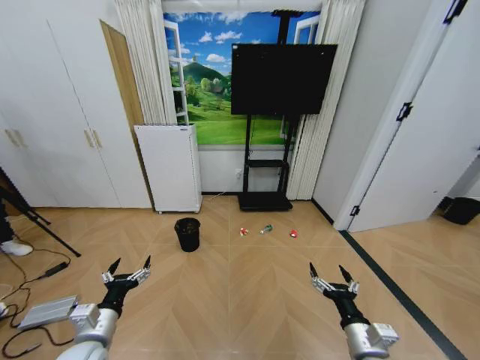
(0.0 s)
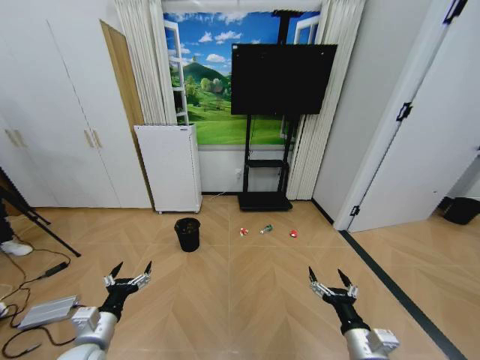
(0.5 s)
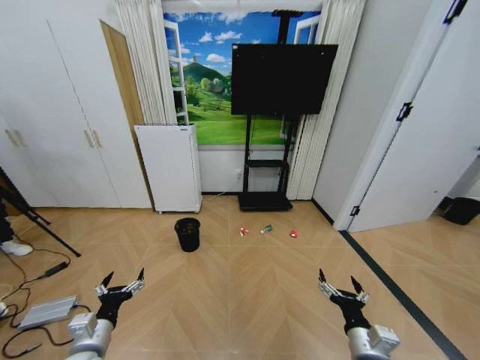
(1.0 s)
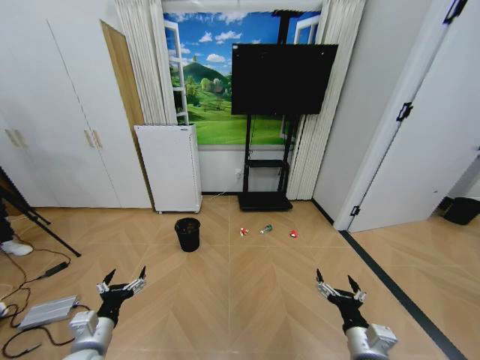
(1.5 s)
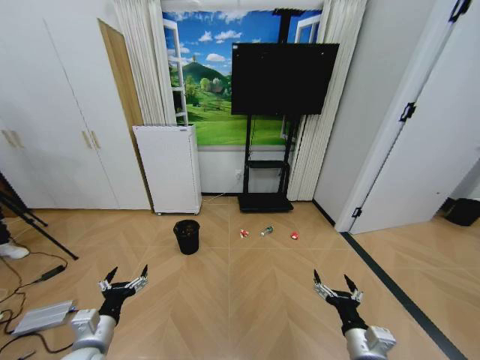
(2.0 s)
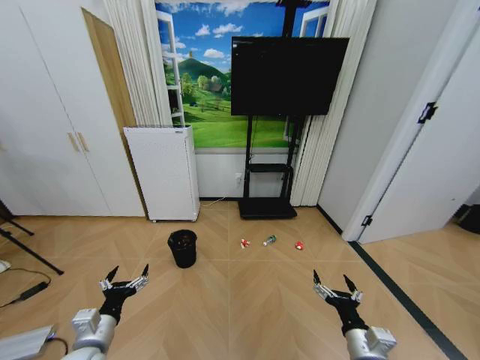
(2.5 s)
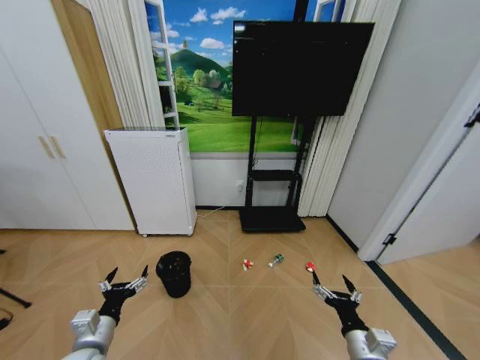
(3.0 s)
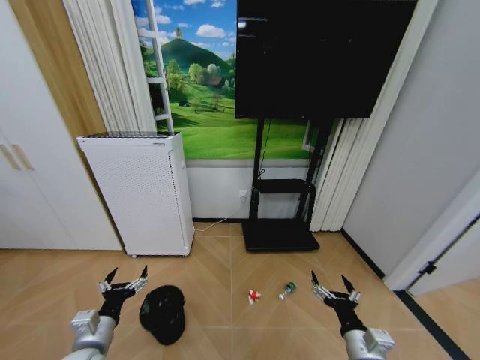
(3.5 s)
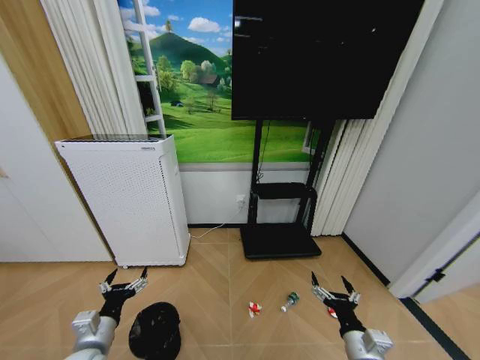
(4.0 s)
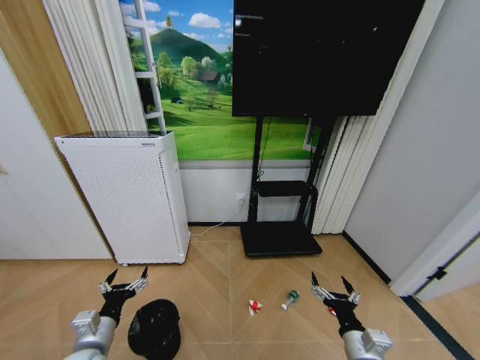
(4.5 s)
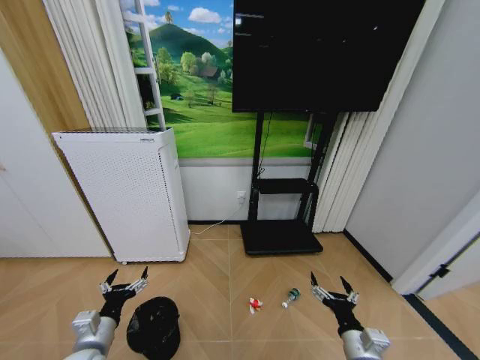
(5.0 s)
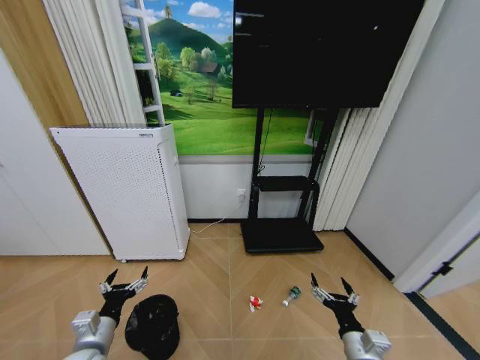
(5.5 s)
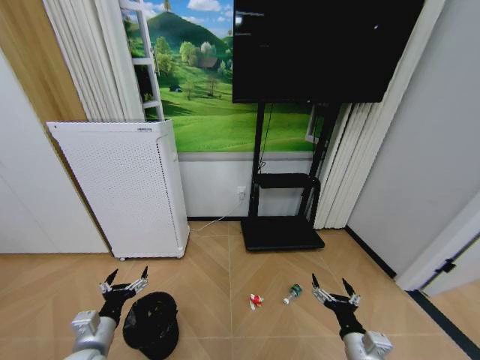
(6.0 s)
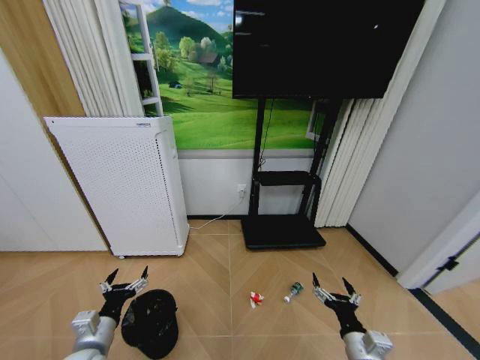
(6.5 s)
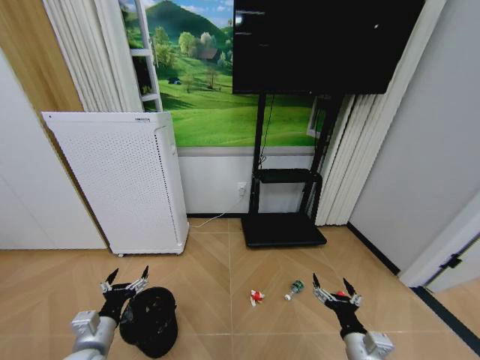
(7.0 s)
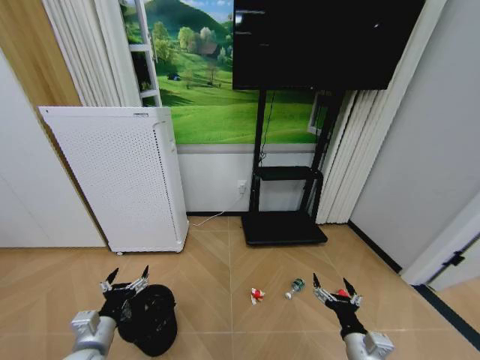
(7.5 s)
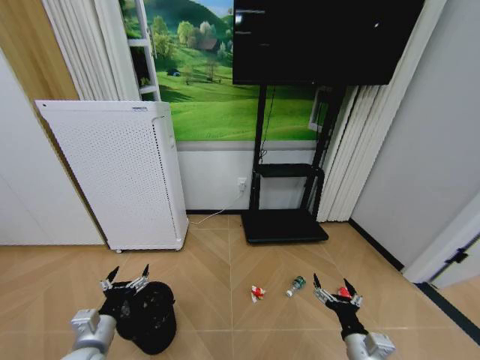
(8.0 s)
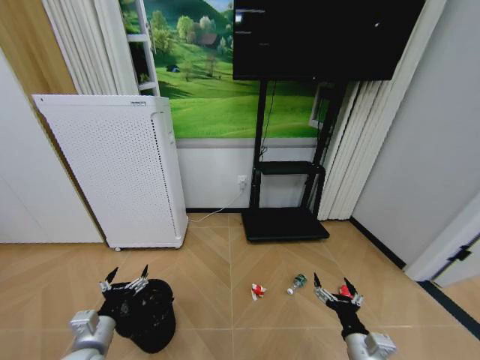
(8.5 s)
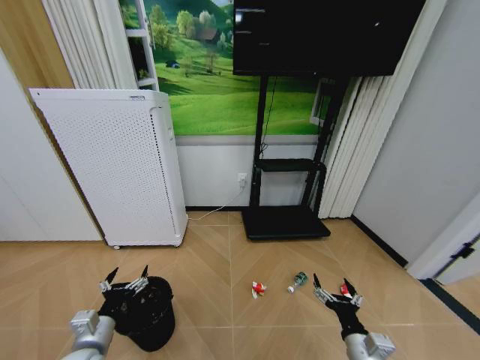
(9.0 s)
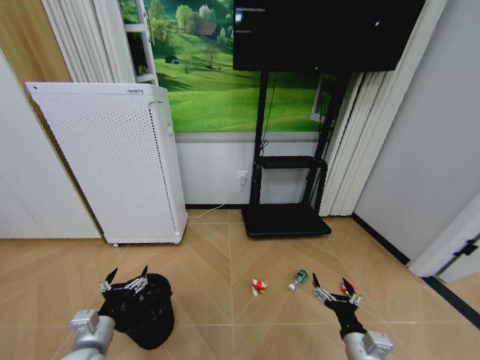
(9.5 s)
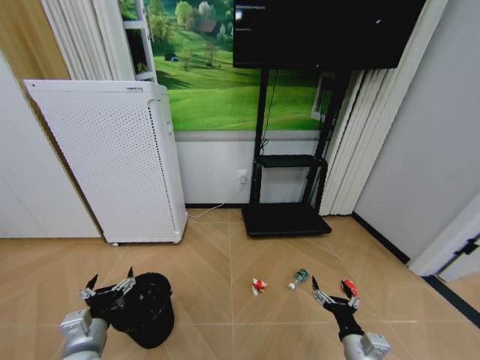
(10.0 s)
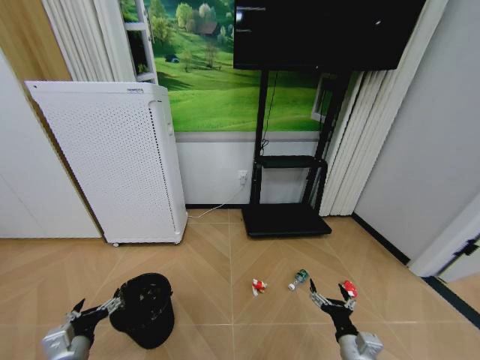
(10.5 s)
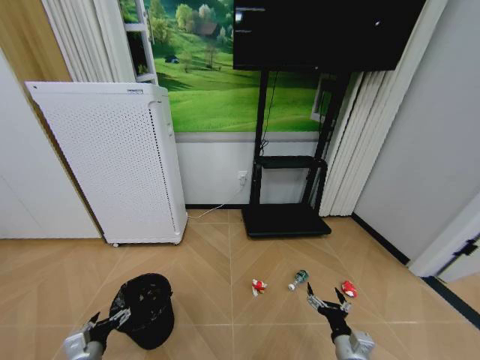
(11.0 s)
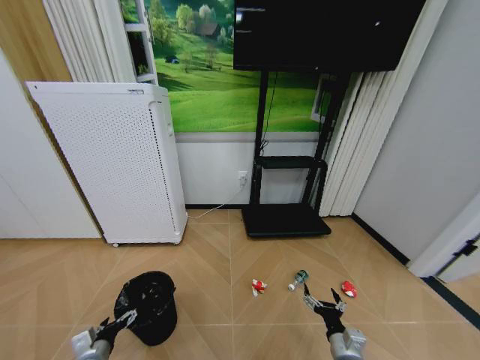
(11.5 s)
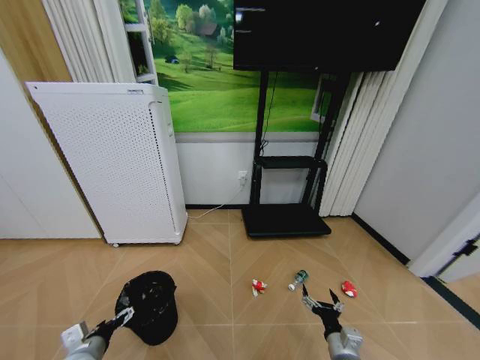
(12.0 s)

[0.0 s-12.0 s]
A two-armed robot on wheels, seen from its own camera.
Task of the whole recording: Pick up the trash bin and place the garbage on the floor into it.
4.0 to 8.0 s: Neither gripper changes place.
8.0 to 10.0 s: The grippers make only small movements.
10.0 to 12.0 s: The left gripper moves downward and to the left, roughly 10 cm. Meanwhile the right gripper travels downward by roughly 5 cm.

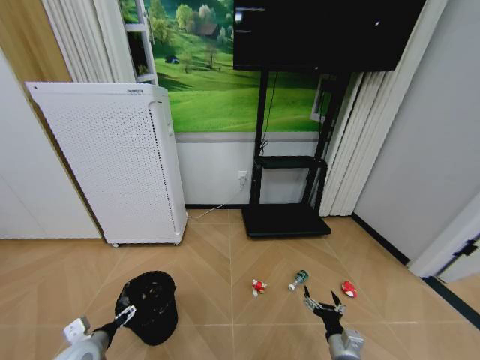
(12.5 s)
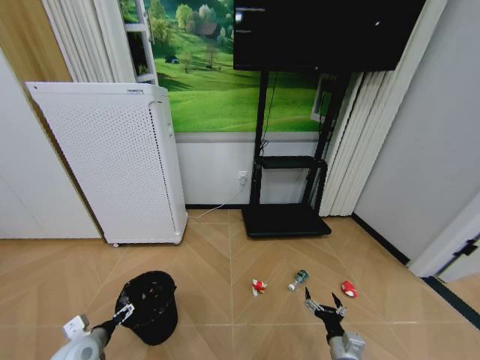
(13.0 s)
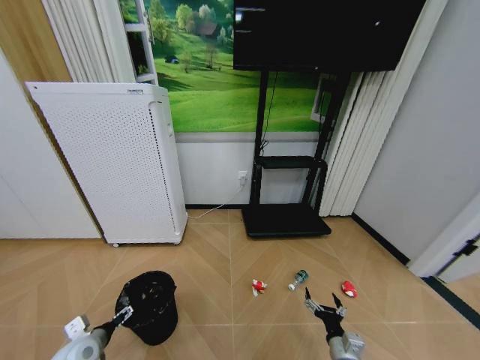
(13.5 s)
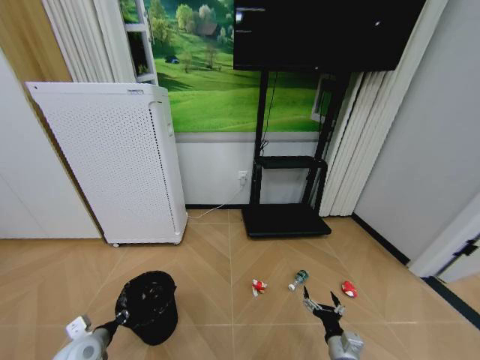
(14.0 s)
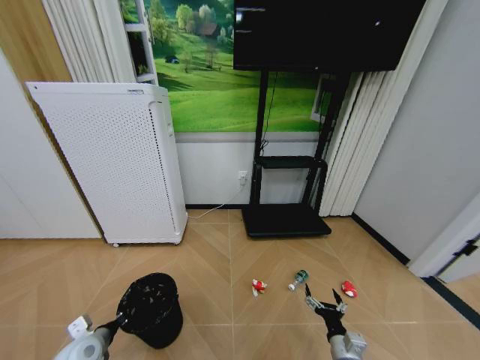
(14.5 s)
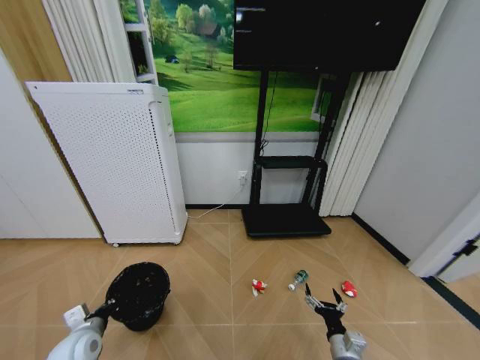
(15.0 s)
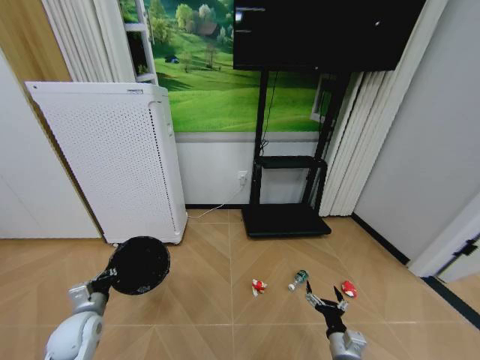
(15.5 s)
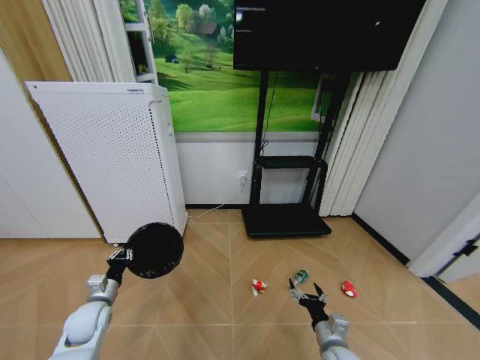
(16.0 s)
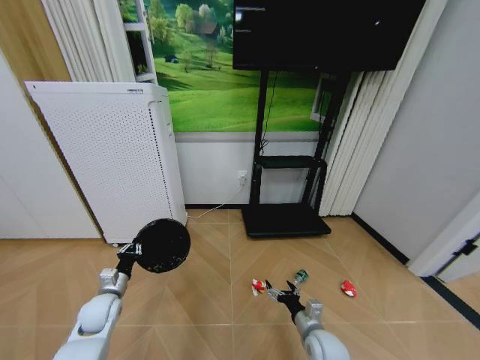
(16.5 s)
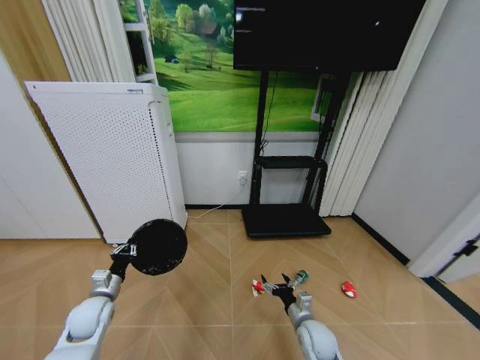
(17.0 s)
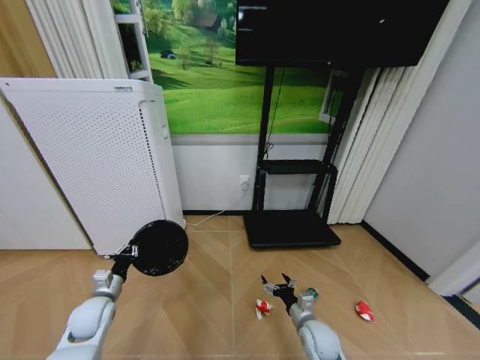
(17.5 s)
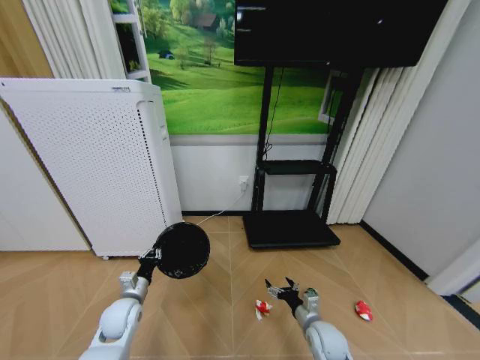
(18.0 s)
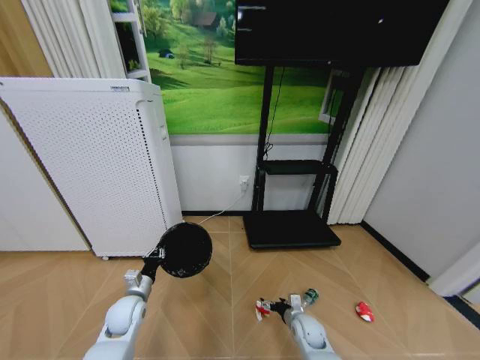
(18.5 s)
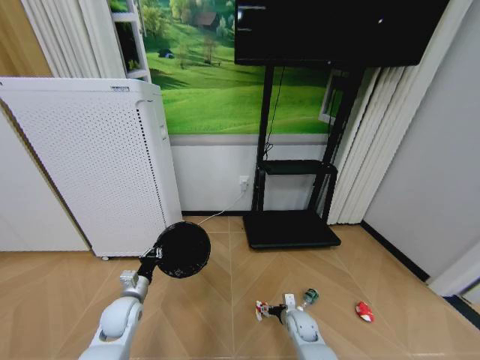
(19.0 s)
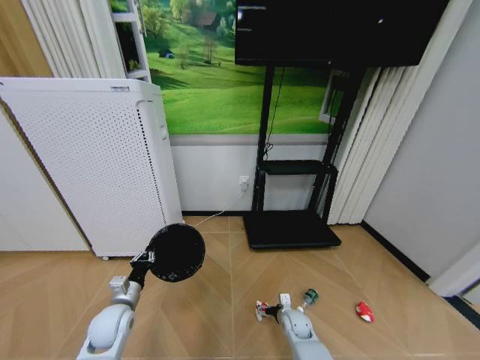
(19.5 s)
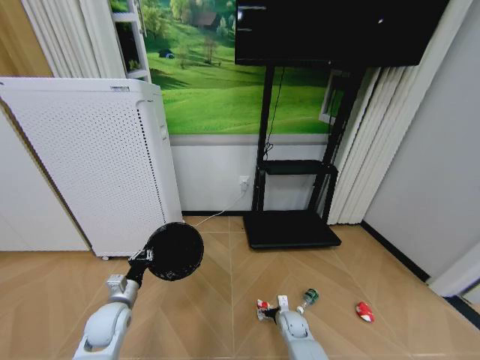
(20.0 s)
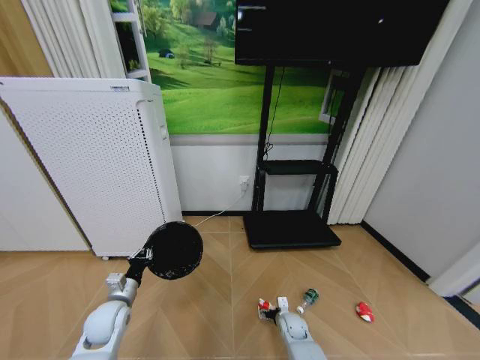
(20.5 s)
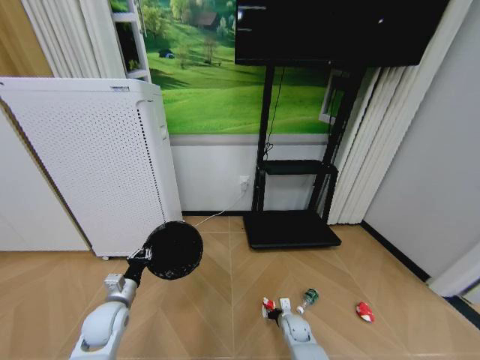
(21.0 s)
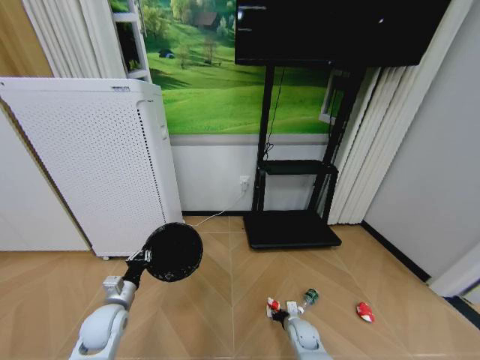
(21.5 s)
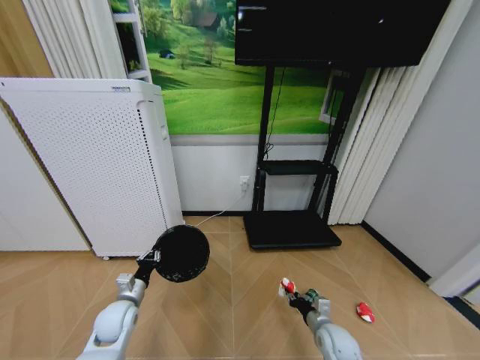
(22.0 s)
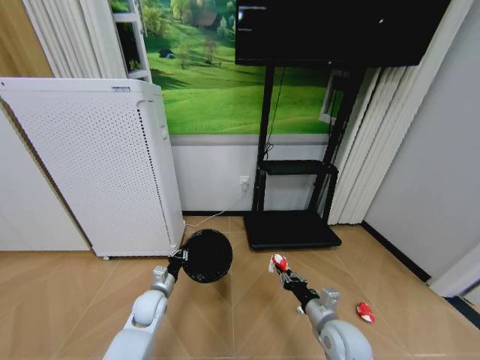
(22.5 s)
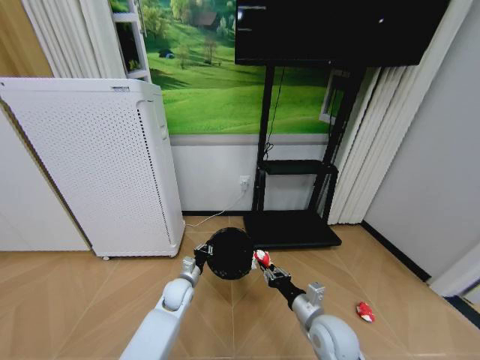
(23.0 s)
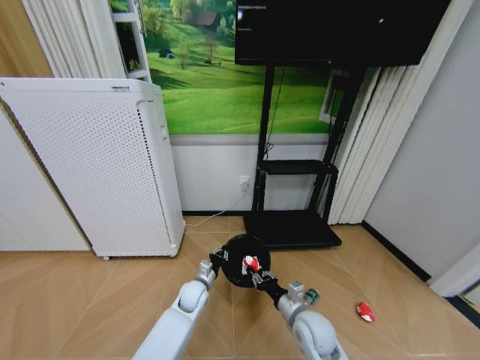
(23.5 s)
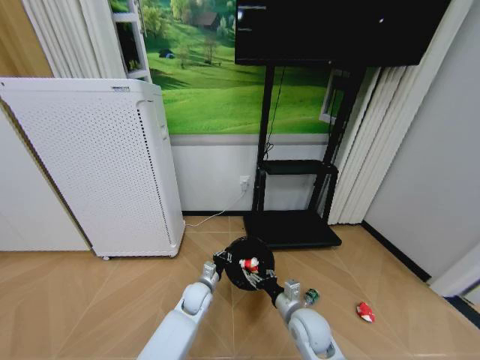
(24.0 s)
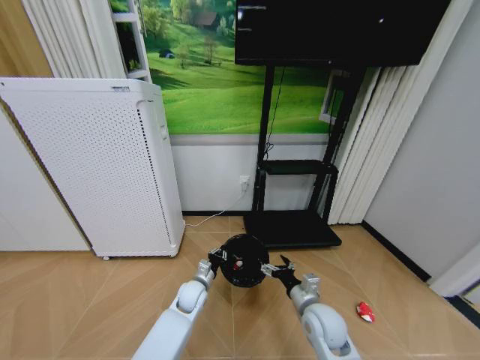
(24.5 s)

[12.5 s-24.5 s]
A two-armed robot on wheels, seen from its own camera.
Task of the whole recording: Pick up the trash bin and place the garbage on the floor into it.
12.5 to 14.5 s: The left gripper closes up.
14.5 to 16.5 s: The right gripper travels forward and to the left by approximately 10 cm; the left gripper travels forward by approximately 10 cm.
16.5 to 18.5 s: The left gripper is displaced to the right by approximately 5 cm; the right gripper is displaced downward and forward by roughly 10 cm.
18.5 to 20.5 s: The right gripper shifts approximately 5 cm downward.
20.5 to 22.5 s: The right gripper heads upward and backward, covering about 25 cm, and closes, while the left gripper goes approximately 10 cm to the right.
22.5 to 24.5 s: The right gripper ends up roughly 5 cm from where it was, and opens up; the left gripper travels to the right by roughly 15 cm.

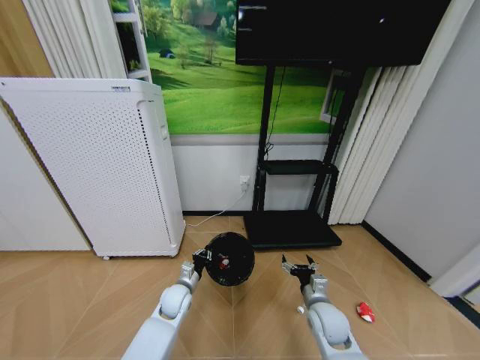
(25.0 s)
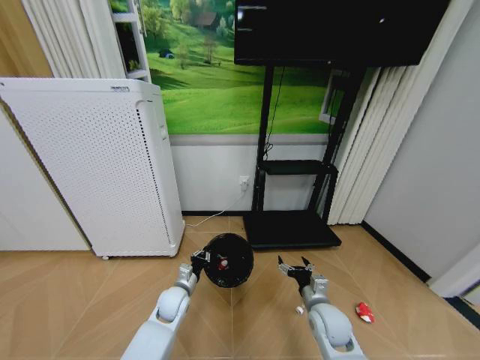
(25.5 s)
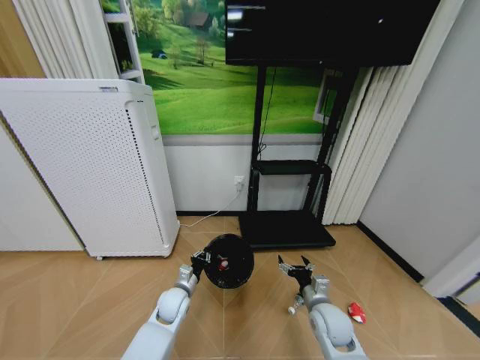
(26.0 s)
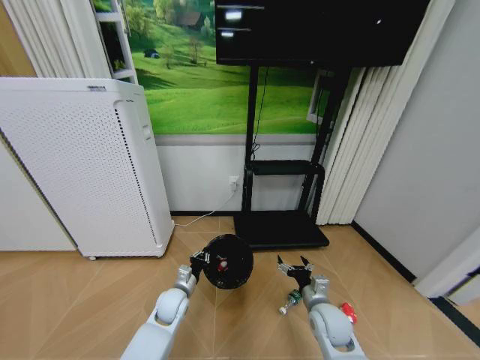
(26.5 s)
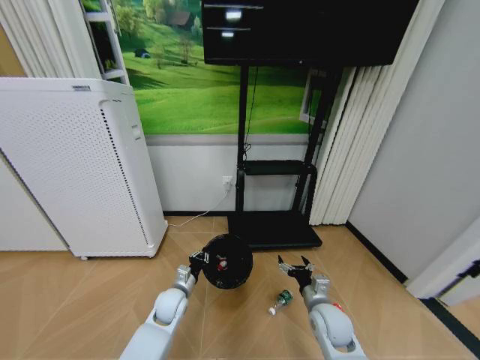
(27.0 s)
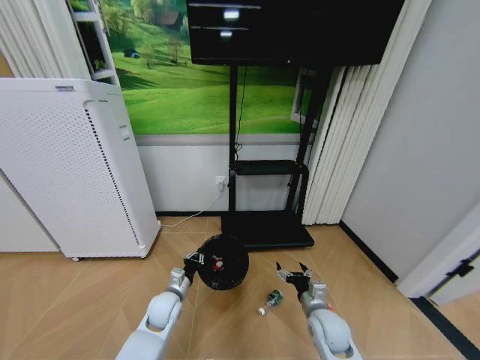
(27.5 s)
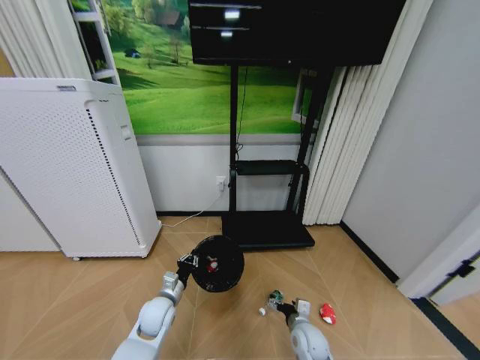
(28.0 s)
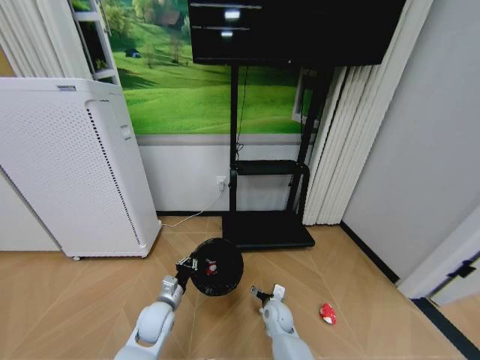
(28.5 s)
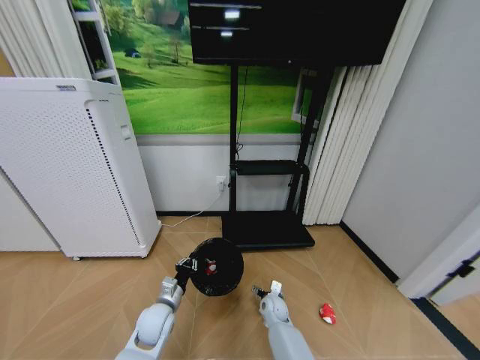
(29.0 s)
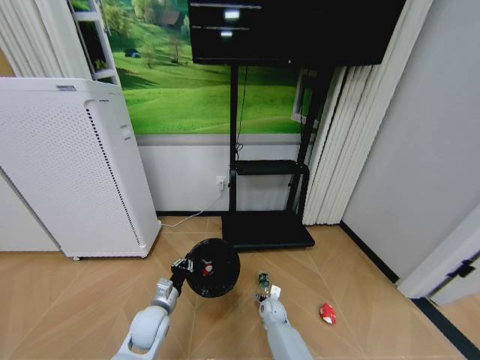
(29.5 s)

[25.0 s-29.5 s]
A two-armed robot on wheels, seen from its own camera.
Task of the whole recording: Pick up the trash bin and place the garbage on the floor into it.
27.0 to 29.5 s: The left gripper travels backward by approximately 5 cm; the right gripper goes roughly 25 cm downward, forward and to the left.
